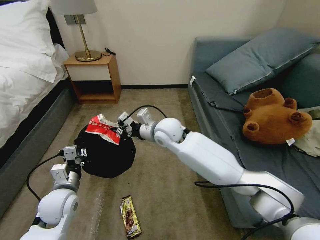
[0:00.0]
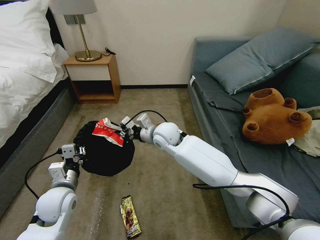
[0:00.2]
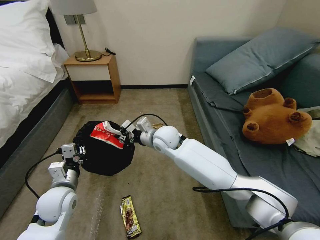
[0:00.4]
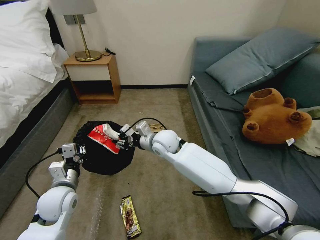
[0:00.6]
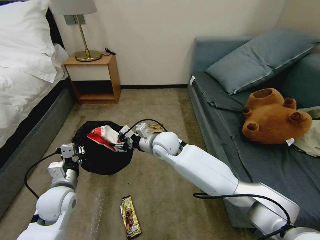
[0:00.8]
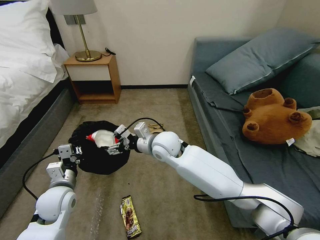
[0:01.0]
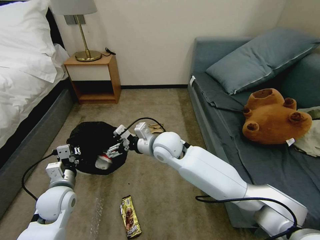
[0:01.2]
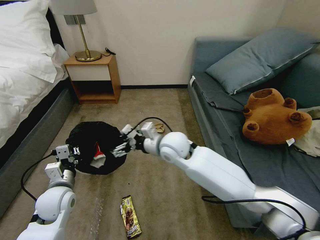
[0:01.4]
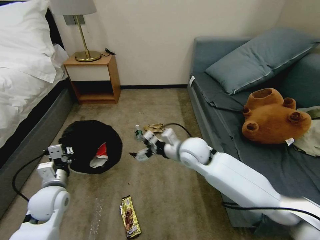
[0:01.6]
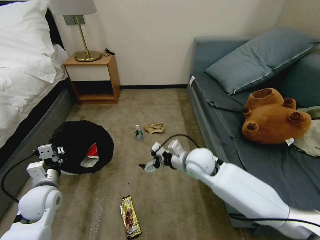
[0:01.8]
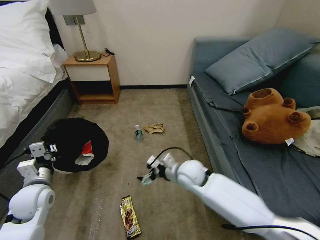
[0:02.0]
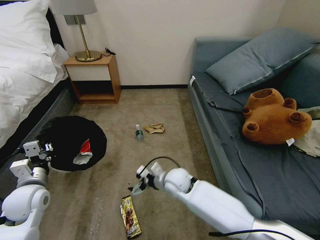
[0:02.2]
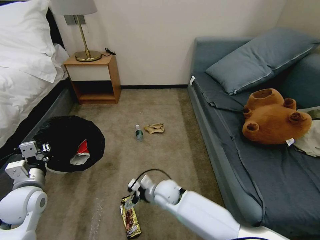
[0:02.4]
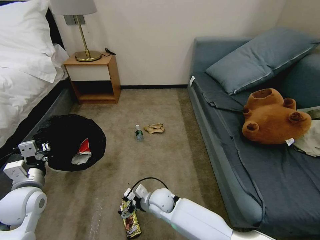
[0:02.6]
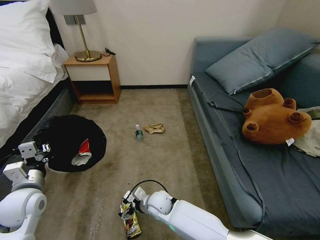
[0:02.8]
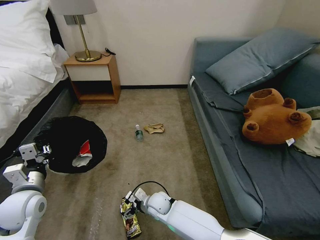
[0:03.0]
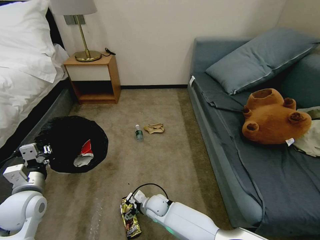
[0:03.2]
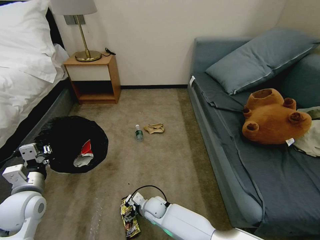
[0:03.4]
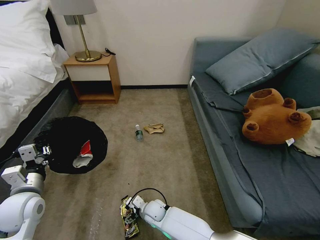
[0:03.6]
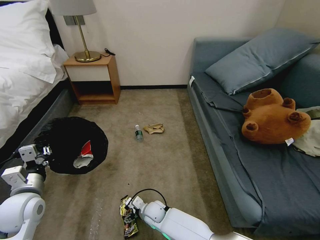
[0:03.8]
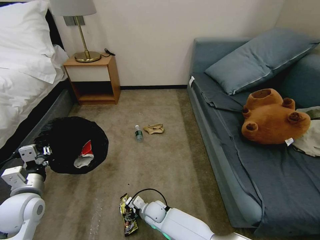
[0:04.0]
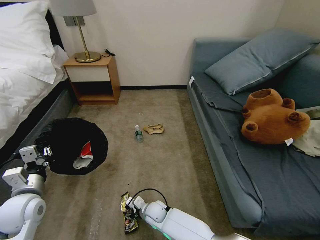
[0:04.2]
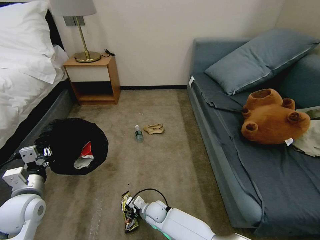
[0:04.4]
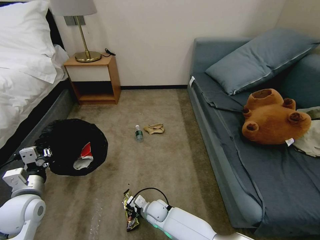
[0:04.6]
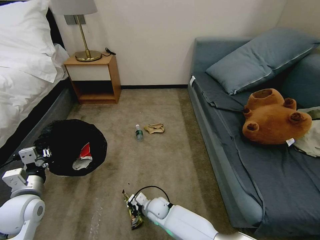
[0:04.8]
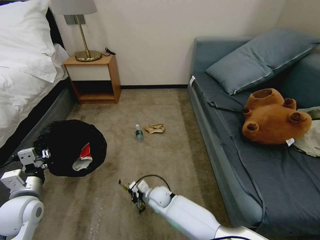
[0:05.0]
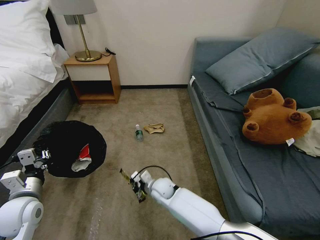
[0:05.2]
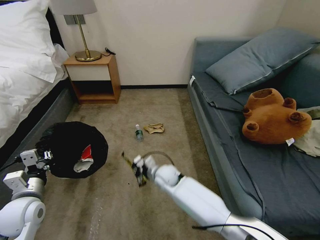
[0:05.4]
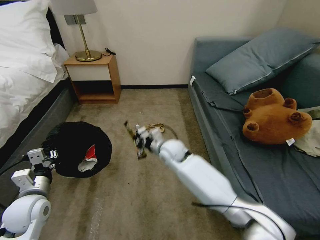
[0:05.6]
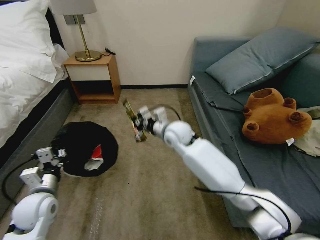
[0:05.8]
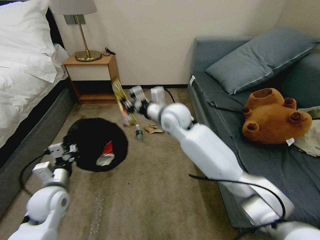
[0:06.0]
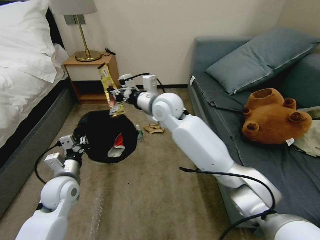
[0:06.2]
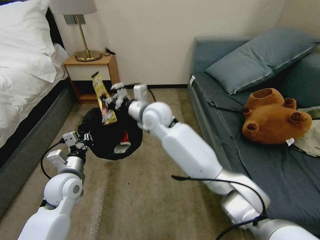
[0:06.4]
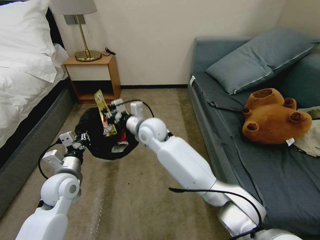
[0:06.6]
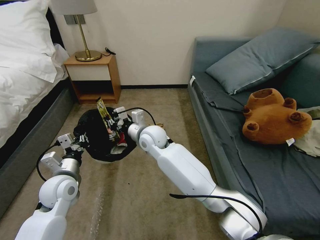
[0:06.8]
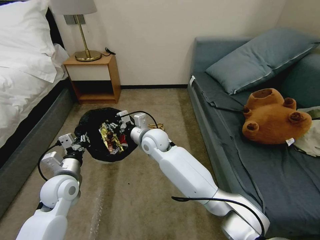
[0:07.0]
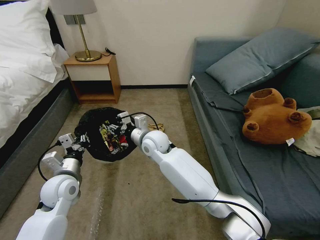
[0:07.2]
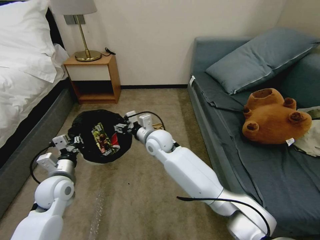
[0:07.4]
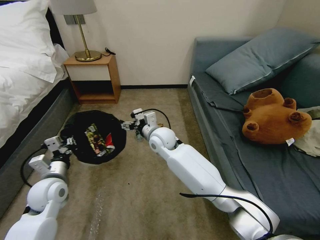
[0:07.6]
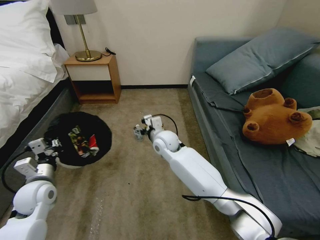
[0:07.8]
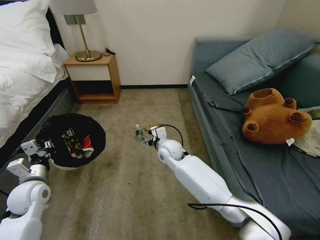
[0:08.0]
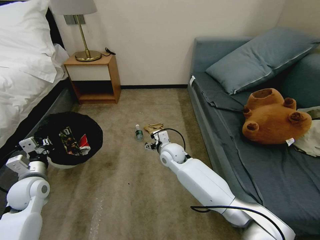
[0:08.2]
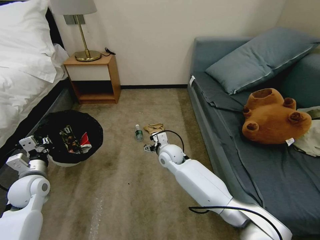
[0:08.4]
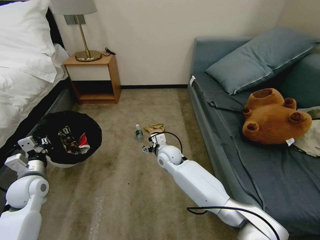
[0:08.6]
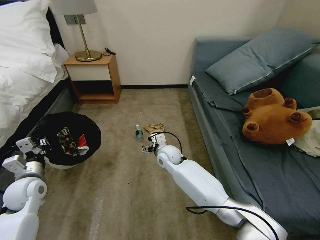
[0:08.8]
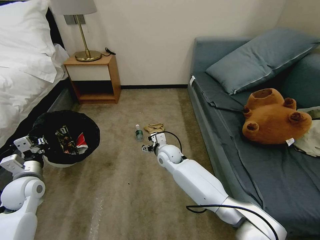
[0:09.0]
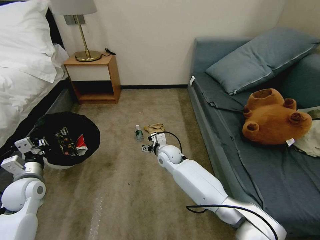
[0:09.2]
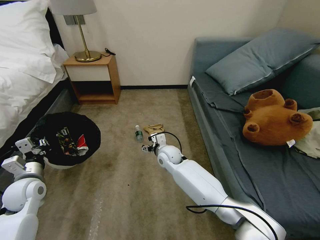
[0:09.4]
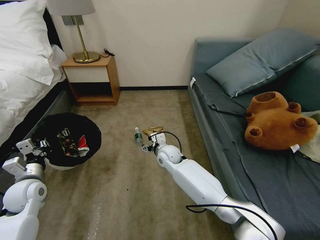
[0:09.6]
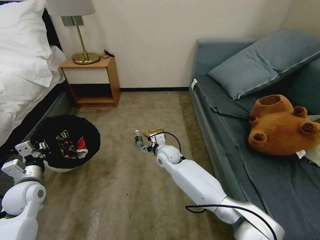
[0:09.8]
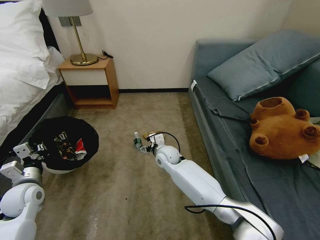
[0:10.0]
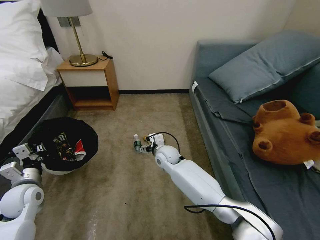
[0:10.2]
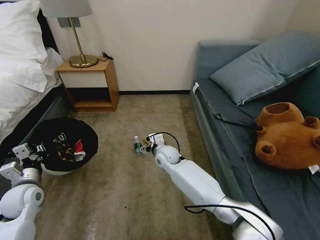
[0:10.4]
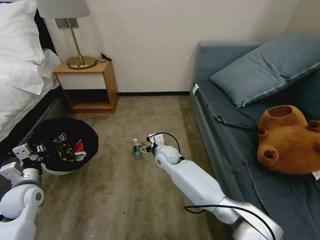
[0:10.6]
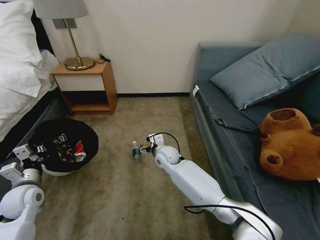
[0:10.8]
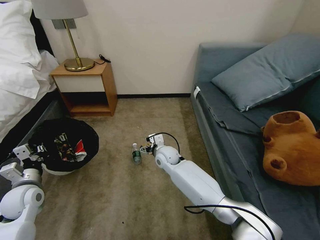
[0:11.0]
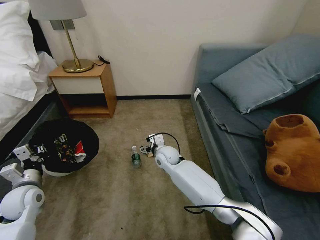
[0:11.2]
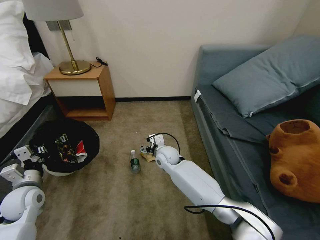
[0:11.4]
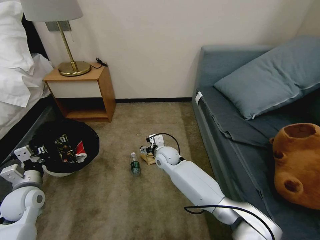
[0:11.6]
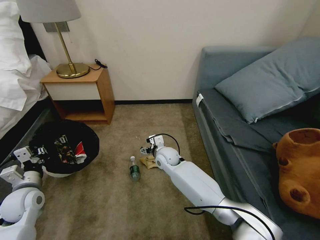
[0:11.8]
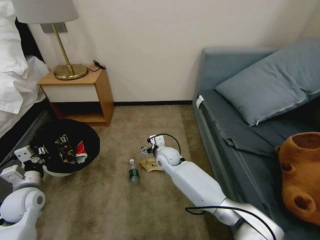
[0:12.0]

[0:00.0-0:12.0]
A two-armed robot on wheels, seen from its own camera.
Task of the whole recording: Pick up the trash bin, then pick up the garbage on the floor and place it into the trash bin.
0.0 to 1.6 s: The right gripper shifts approximately 10 cm to the right and backward, and opens its fingers.
1.6 to 3.0 s: The right gripper goes some 25 cm downward and to the left; the left gripper moves approximately 5 cm.
3.0 to 4.4 s: The right gripper heads downward, covering approximately 5 cm, and closes.
4.4 to 6.0 s: The left gripper moves roughly 5 cm, while the right gripper is displaced upward and forward by approximately 40 cm, and closes up.
6.0 to 7.6 s: The right gripper heads downward, covering about 10 cm, and opens its fingers.
7.6 to 9.0 s: The left gripper travels to the left by roughly 5 cm; the right gripper is displaced downward by about 10 cm.

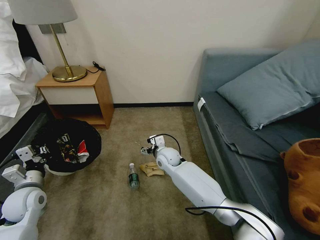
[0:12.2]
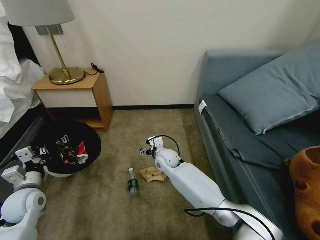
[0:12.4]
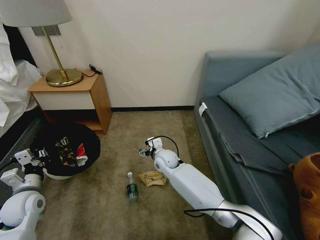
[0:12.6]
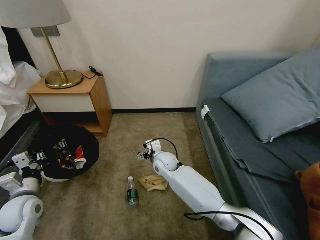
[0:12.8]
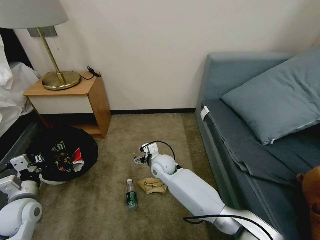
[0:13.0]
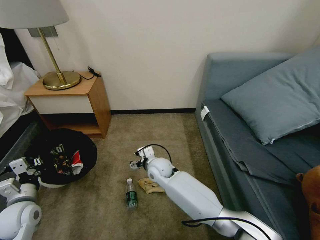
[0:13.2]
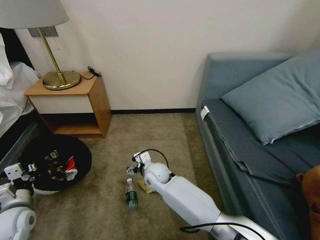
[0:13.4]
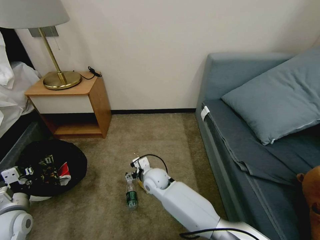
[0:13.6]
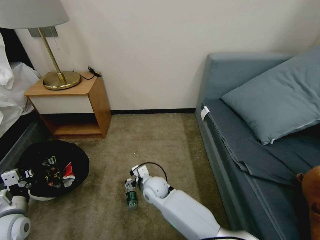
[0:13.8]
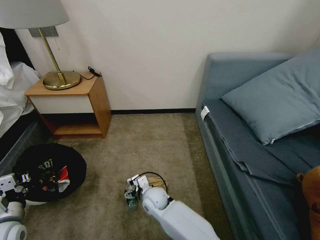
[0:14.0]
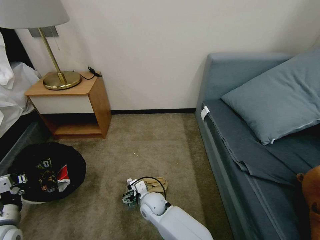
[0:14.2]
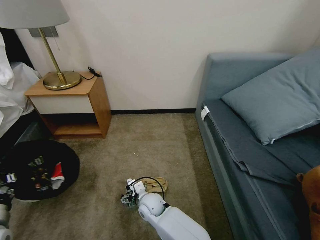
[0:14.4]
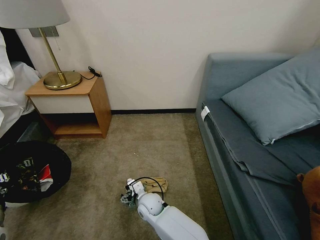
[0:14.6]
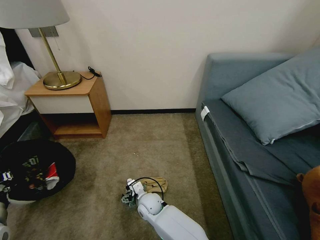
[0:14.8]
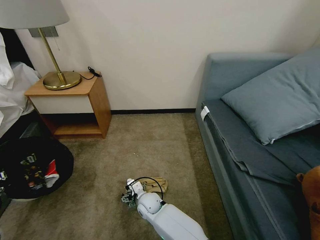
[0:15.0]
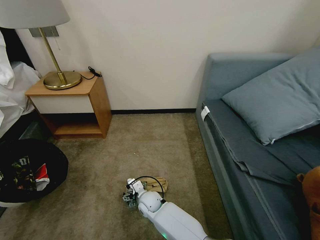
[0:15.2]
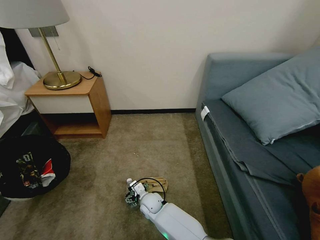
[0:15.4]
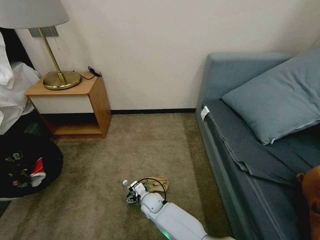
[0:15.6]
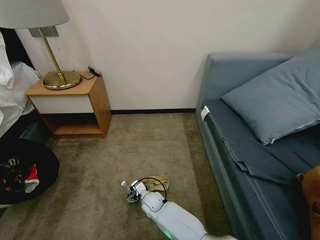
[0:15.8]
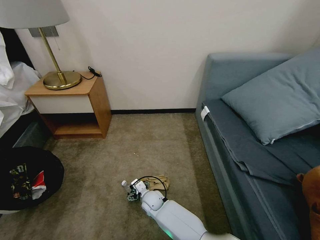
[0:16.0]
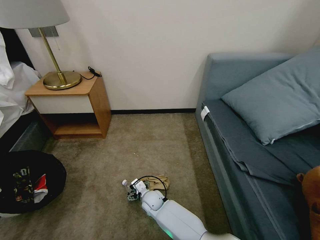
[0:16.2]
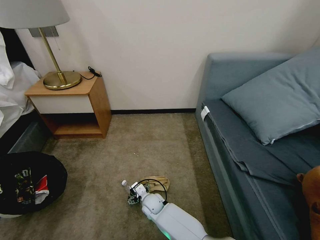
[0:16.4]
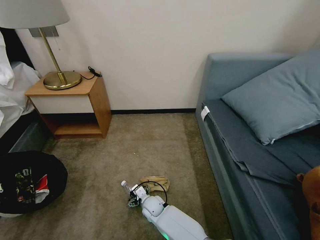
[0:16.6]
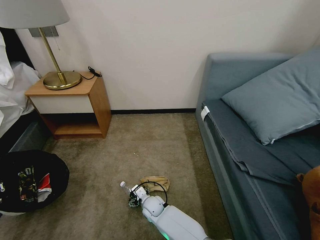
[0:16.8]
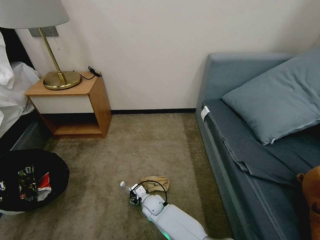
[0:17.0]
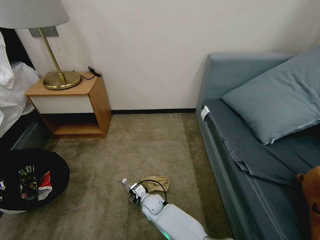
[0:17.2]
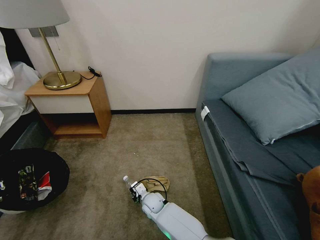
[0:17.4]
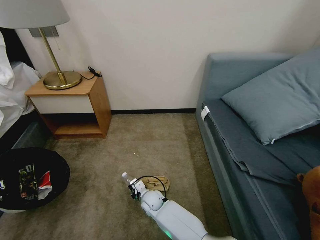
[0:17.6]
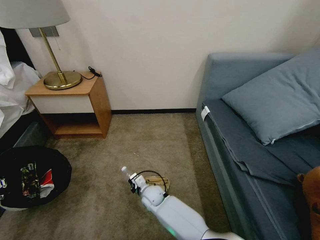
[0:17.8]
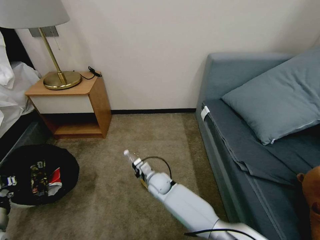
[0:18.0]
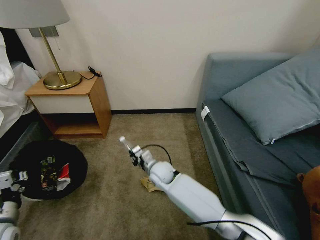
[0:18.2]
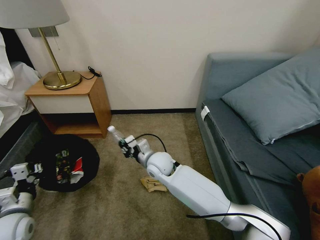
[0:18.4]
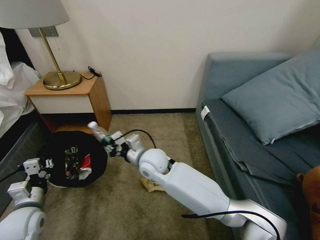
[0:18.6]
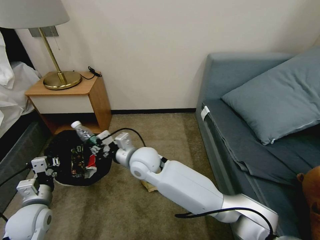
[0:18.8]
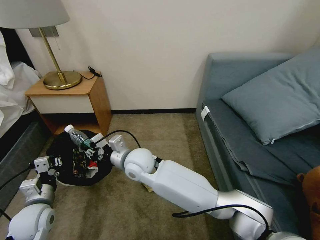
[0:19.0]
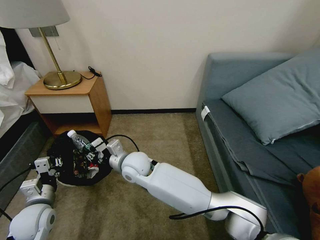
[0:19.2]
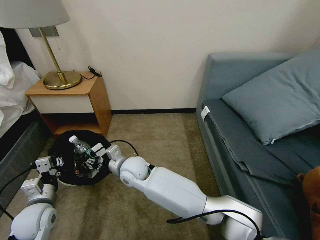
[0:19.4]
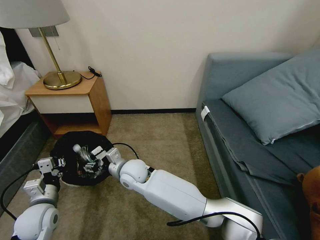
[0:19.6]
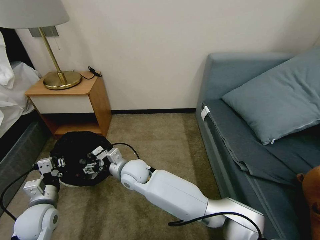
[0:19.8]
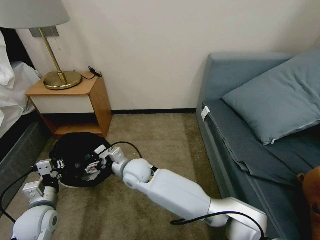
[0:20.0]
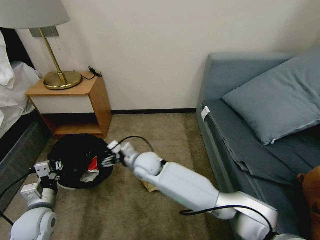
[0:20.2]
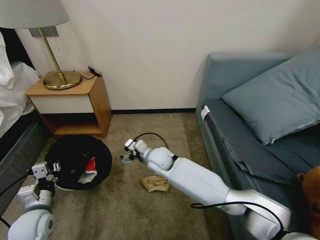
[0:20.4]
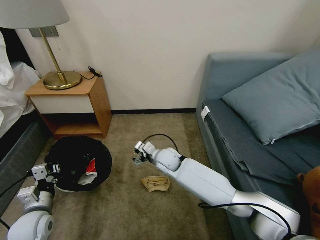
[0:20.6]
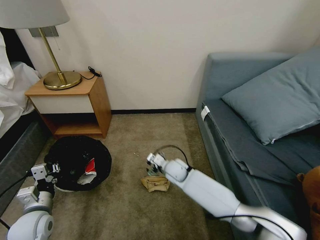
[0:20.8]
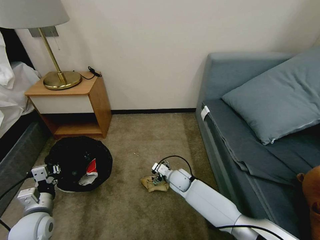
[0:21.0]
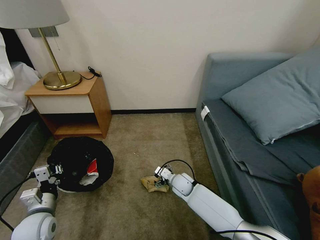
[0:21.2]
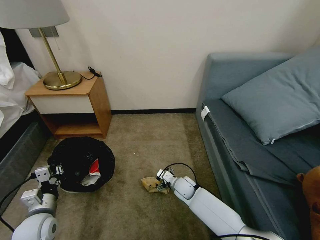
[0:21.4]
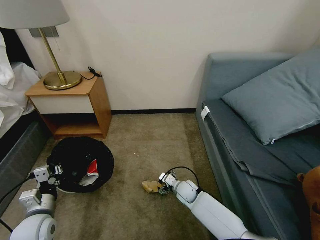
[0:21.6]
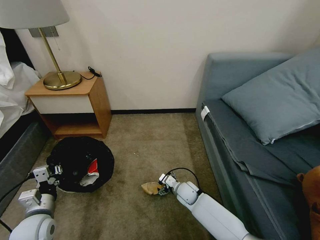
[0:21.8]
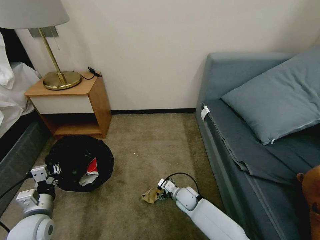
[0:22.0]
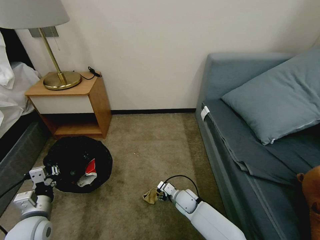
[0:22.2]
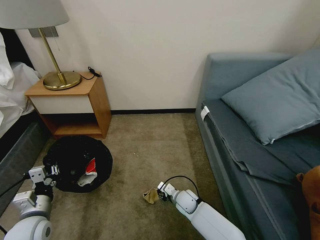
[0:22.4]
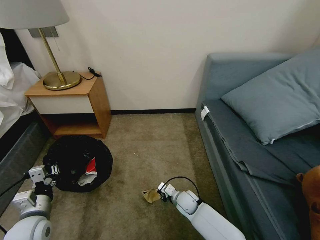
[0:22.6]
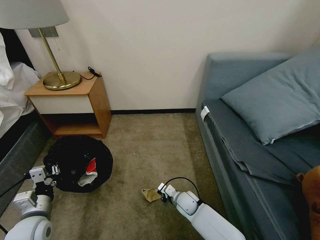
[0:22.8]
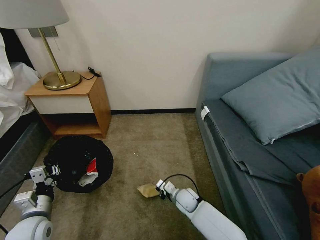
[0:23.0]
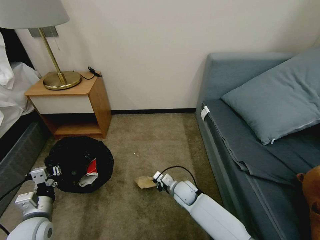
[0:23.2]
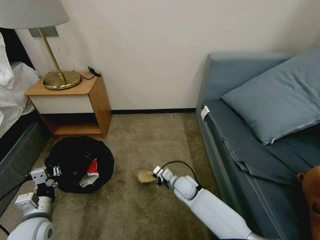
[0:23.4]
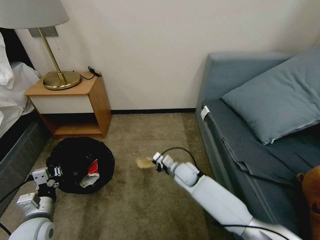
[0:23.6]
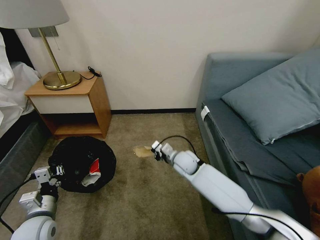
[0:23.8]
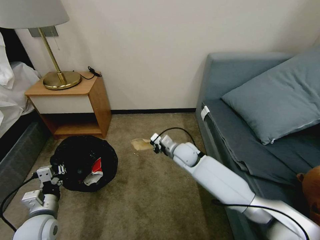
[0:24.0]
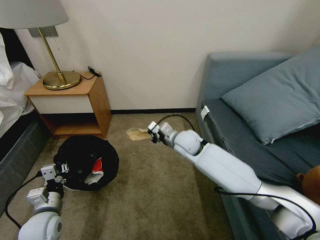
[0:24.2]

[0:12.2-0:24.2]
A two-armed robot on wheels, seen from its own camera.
Task of the whole recording: Pick up the trash bin, then pick up the garbage on the floor and place it into the trash bin.
12.2 to 13.8 s: The right gripper travels backward, downward and to the left by approximately 15 cm. Meanwhile the left gripper goes approximately 5 cm backward.
13.8 to 15.2 s: The left gripper shifts by some 5 cm. Meanwhile the right gripper goes some 10 cm downward.
15.2 to 16.6 s: The left gripper ends up roughly 5 cm from where it was.
16.6 to 18.2 s: The right gripper travels upward and forward by approximately 15 cm, and closes its fingers. The left gripper is displaced to the right by roughly 5 cm.
18.2 to 19.8 s: The right gripper is displaced to the left and upward by roughly 10 cm, and opens its fingers. Meanwhile the left gripper is displaced to the right and forward by some 10 cm.
19.8 to 21.2 s: The right gripper travels to the right and downward by some 25 cm.
21.2 to 22.6 s: The right gripper is displaced backward by roughly 5 cm, and closes its fingers.
22.6 to 24.2 s: The right gripper heads upward and forward, covering about 30 cm.
